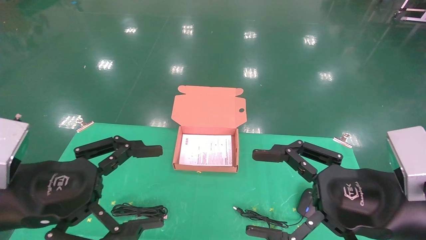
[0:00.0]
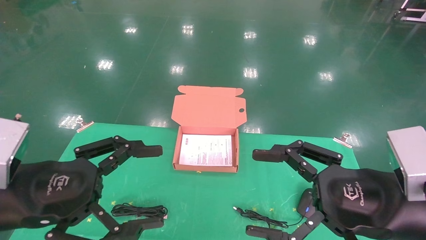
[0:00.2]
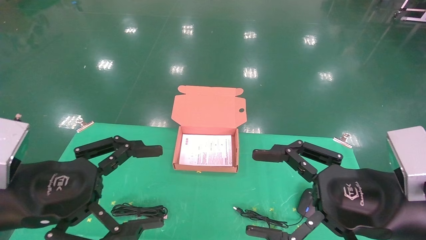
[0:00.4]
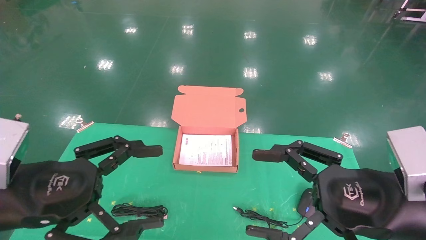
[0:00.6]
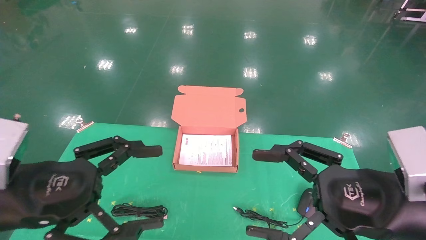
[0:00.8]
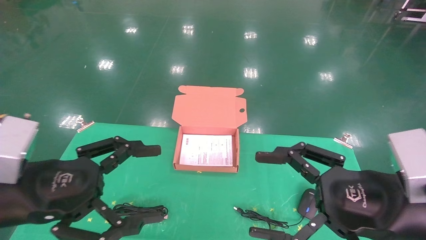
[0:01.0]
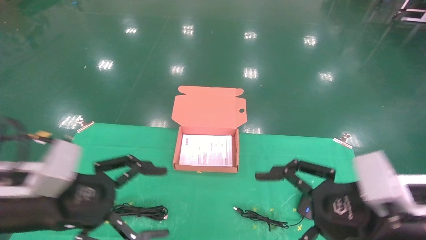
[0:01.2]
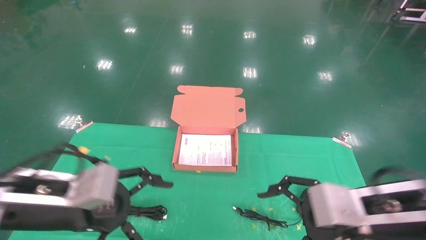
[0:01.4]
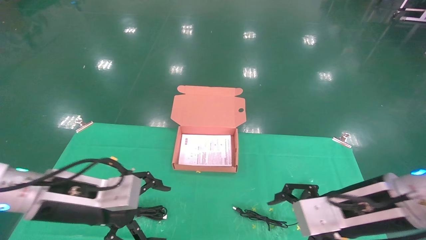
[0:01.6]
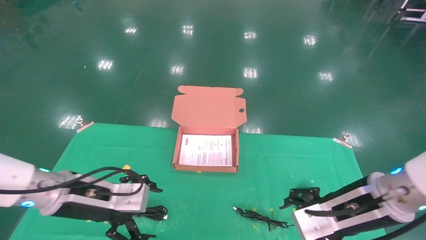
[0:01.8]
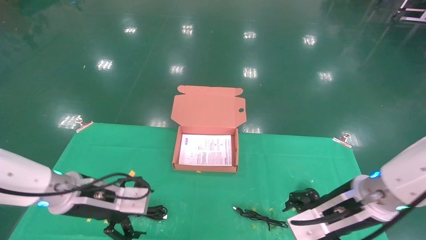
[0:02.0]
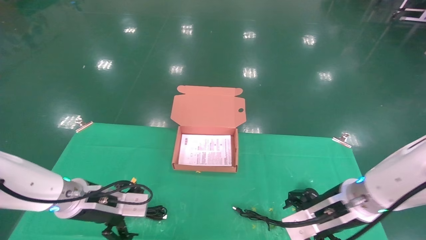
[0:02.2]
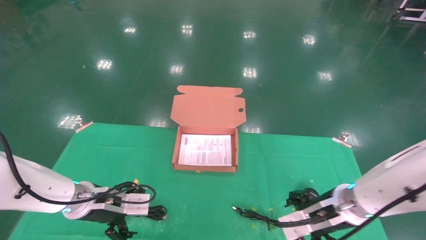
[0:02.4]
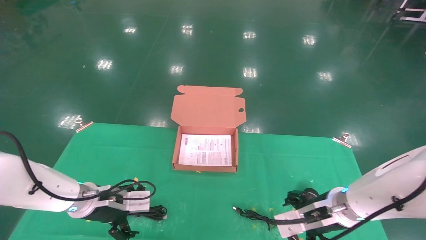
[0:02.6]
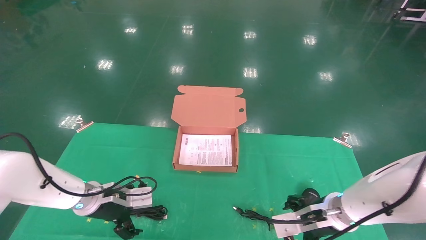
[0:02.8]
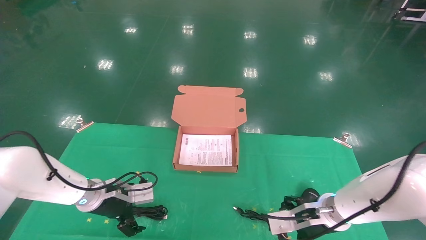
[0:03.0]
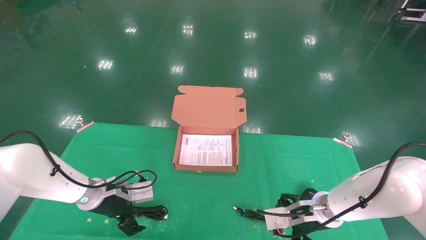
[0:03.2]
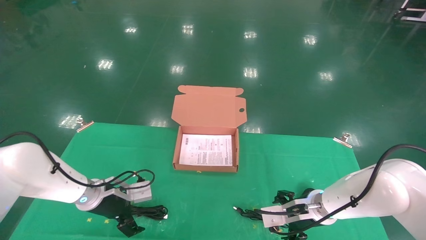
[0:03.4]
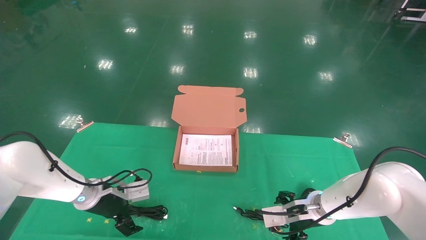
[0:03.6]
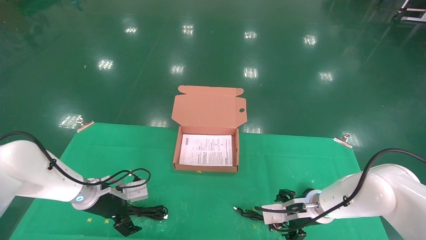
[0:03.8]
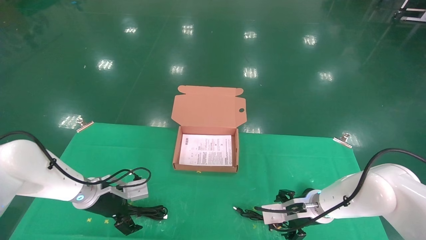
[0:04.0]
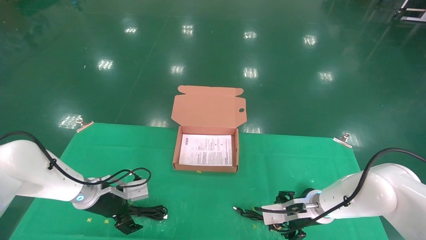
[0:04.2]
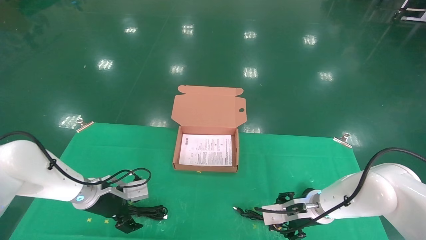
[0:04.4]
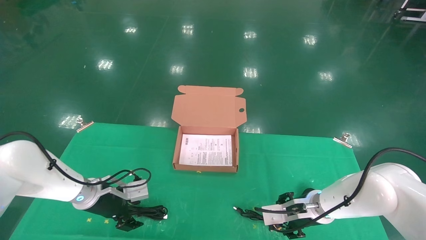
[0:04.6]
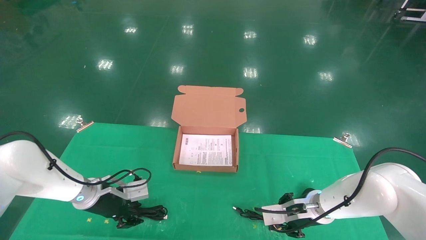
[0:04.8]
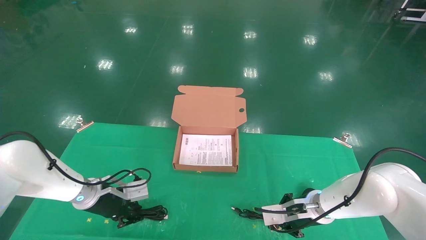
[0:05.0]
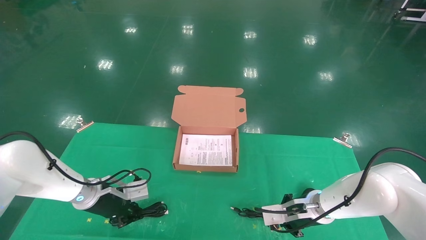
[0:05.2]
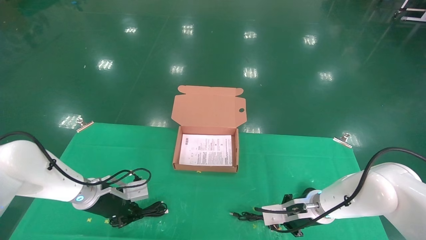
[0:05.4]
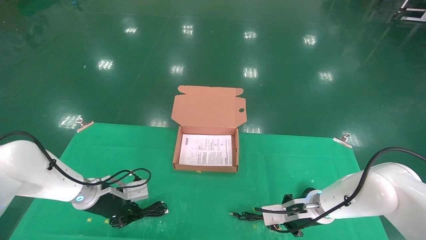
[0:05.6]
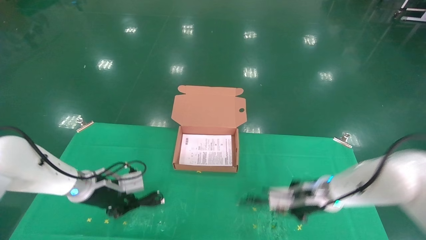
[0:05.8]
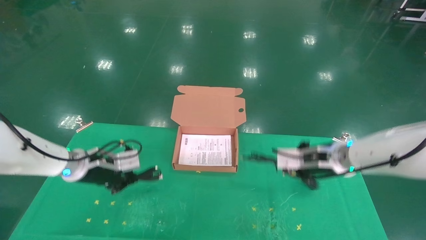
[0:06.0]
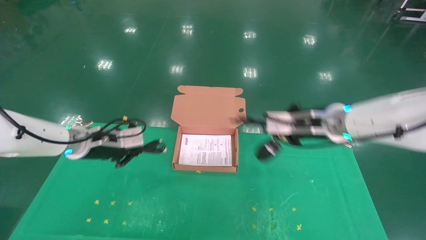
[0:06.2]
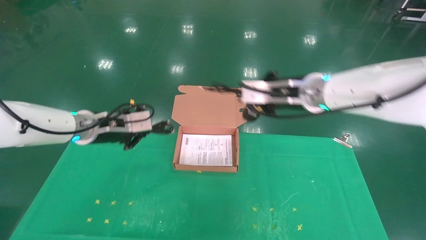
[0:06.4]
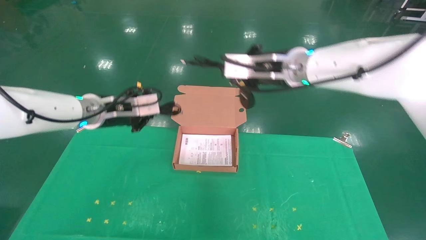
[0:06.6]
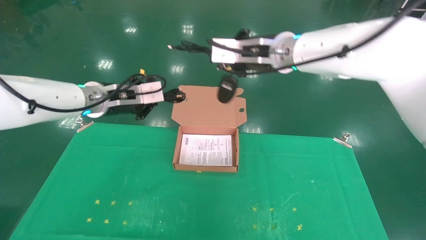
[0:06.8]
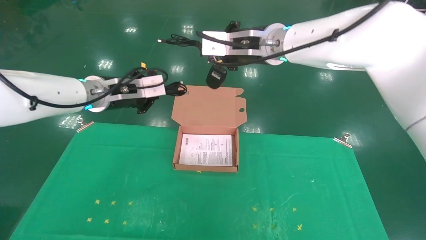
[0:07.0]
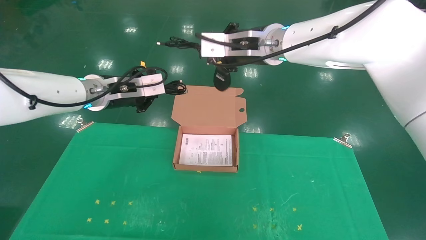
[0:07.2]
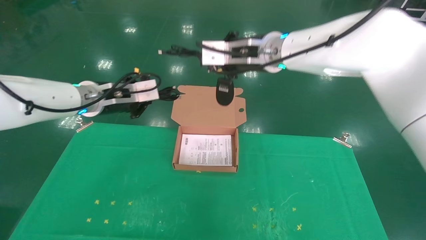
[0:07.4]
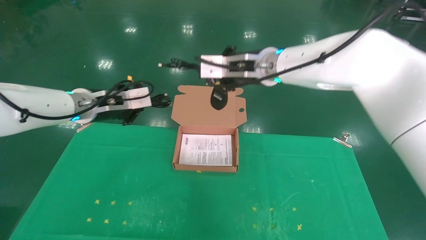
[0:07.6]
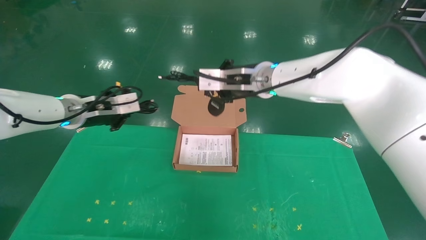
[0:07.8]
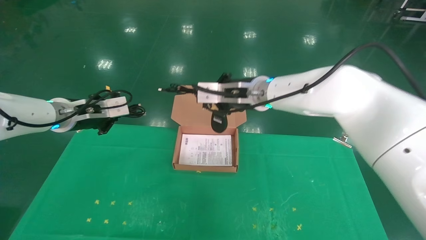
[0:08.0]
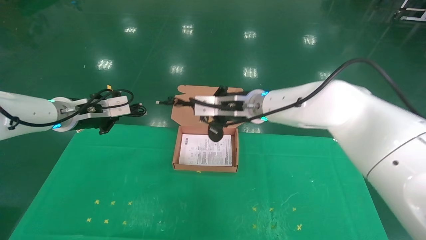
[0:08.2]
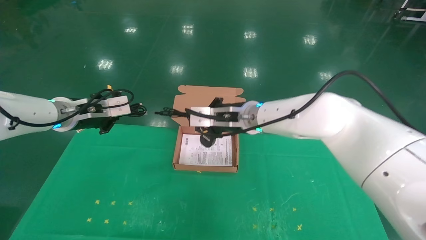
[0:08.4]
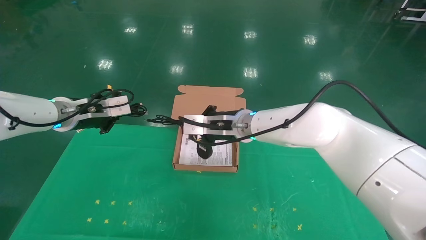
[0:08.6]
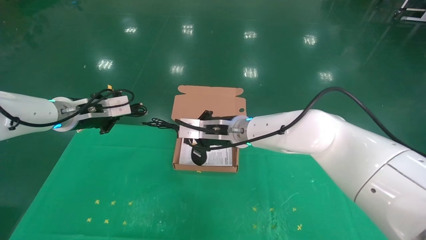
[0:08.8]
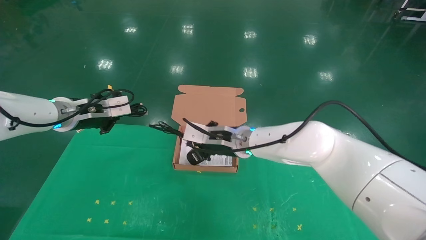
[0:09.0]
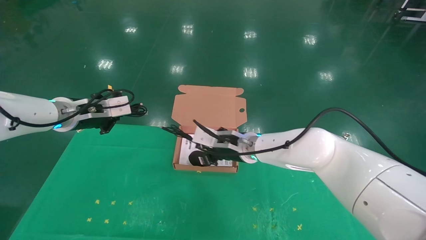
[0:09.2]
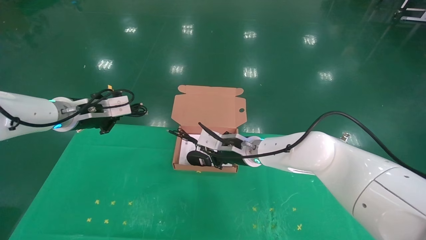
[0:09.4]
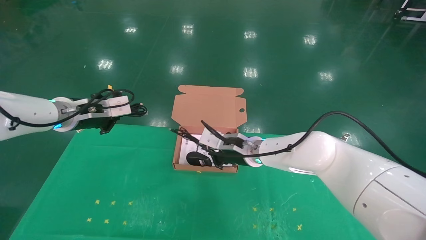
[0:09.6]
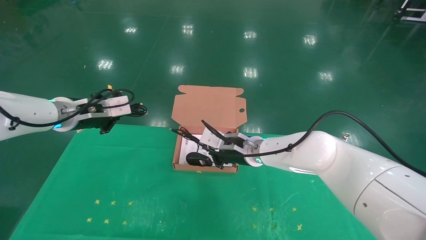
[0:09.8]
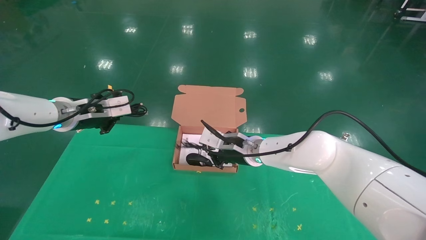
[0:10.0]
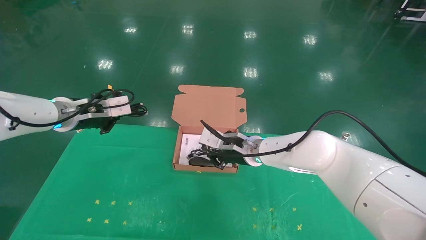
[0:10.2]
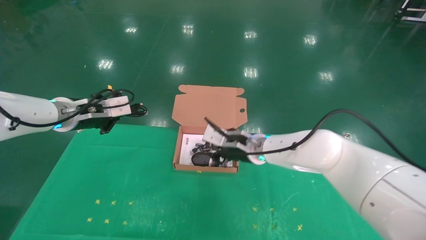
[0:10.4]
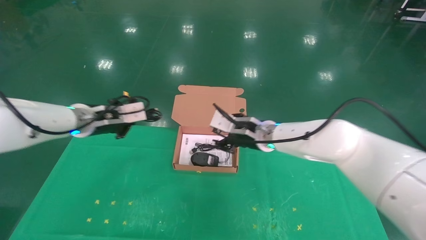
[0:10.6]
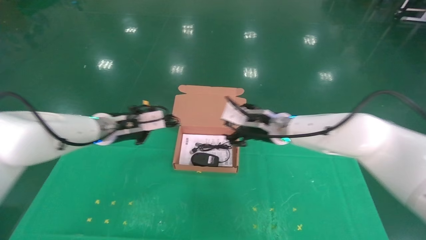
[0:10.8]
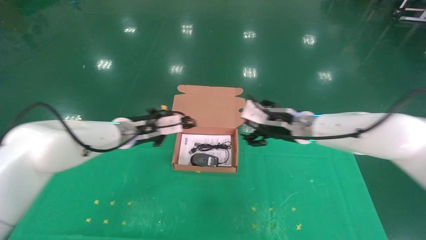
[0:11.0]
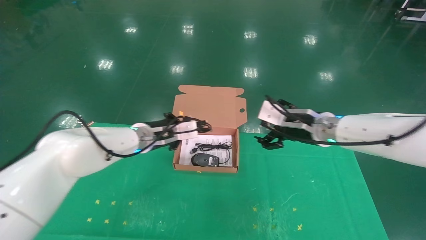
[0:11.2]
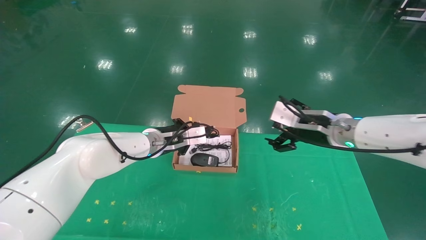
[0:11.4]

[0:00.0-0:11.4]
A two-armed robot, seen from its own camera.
Task of the whole recording: grasp data cable left put into box grasp mouse right put into box.
Step, 0:01.0 to 0:05.4: Grab and pick up both the mouse and power cord from the accessory packaging area at the same time.
0:00.0 to 0:01.4: The left gripper is displaced forward by approximately 5 cm; the right gripper shifts by about 5 cm.
0:01.4 to 0:02.8: Both grippers travel together forward and downward, roughly 15 cm.
0:02.8 to 0:04.2: The right gripper travels forward by approximately 5 cm.
0:04.2 to 0:05.6: The right gripper closes its fingers. Meanwhile the left gripper closes its fingers.
0:05.6 to 0:07.2: The right gripper is displaced upward and to the left by approximately 35 cm. The left gripper is displaced upward by approximately 25 cm.
0:07.2 to 0:08.6: The right gripper travels downward by roughly 15 cm. Meanwhile the left gripper travels to the left by approximately 10 cm.
0:08.6 to 0:10.0: The right gripper moves downward, about 5 cm.
0:10.0 to 0:11.4: The left gripper shifts about 20 cm to the right and downward, while the right gripper travels to the right, upward and backward by roughly 20 cm, and opens.

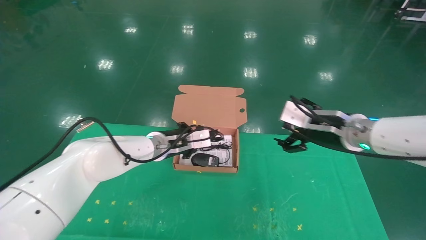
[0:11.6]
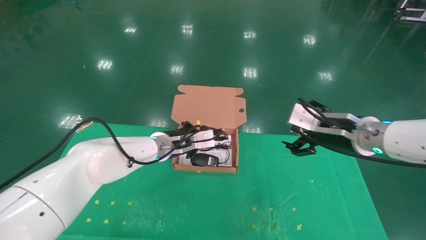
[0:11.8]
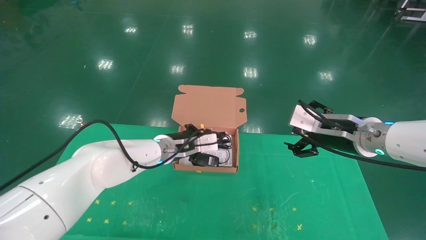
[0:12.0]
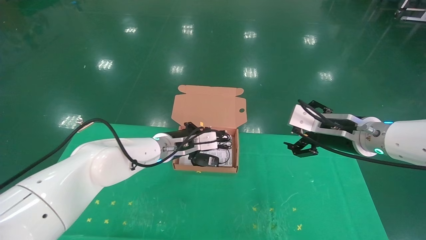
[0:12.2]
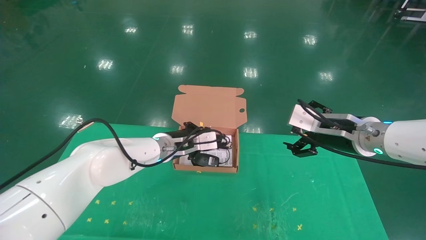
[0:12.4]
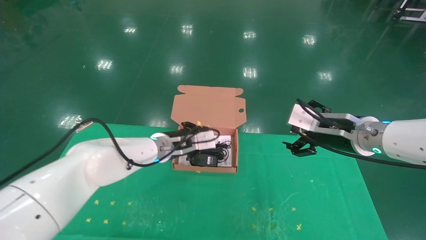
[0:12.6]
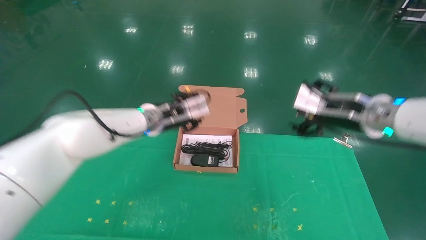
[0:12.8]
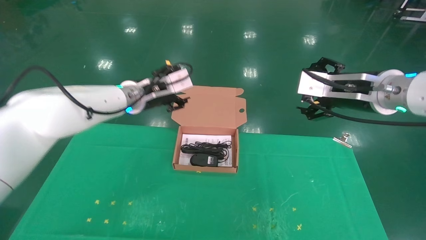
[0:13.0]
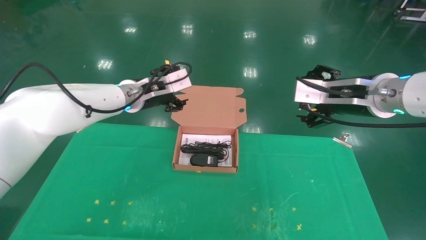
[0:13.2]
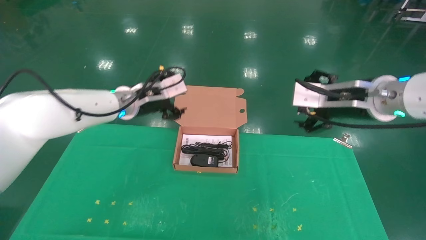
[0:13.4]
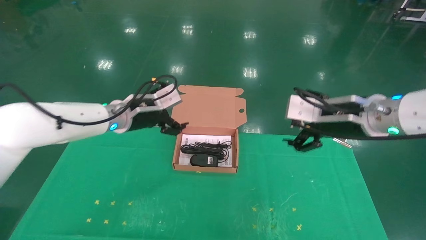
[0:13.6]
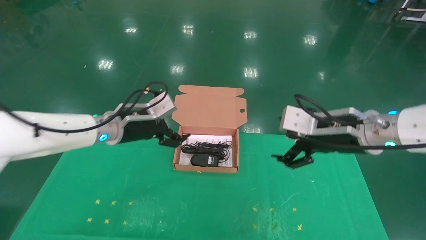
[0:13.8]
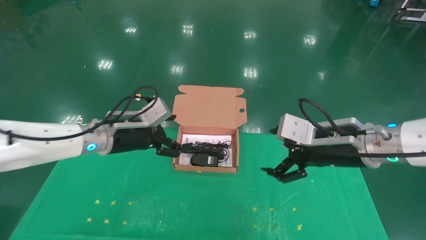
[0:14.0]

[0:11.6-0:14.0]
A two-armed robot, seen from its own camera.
Task of the whole recording: grasp data cable left put into box grasp mouse right put into box.
0:11.6 to 0:12.8: The two grippers go approximately 5 cm upward. The left gripper opens up.
0:12.8 to 0:14.0: The right gripper shifts by about 5 cm; the left gripper heads to the left and backward, covering some 10 cm, and opens its fingers.
